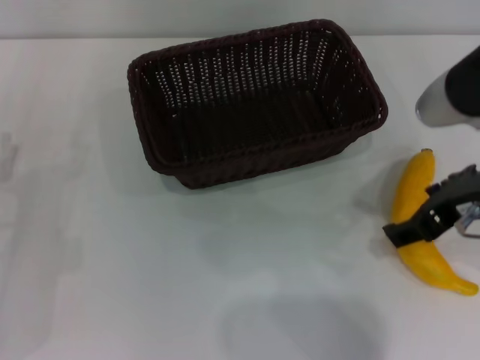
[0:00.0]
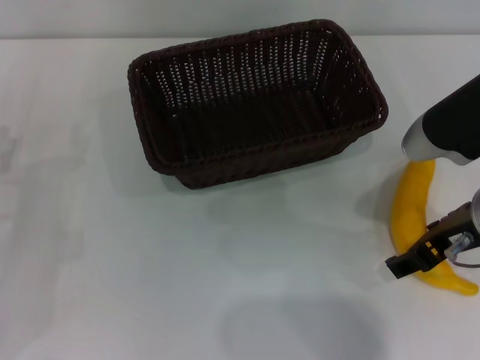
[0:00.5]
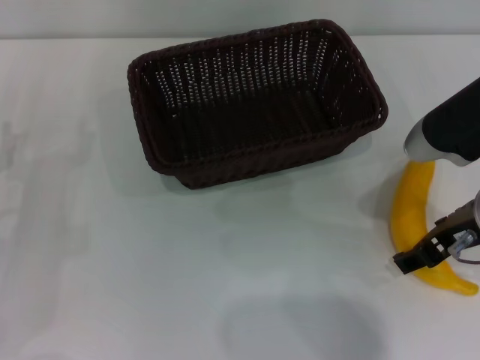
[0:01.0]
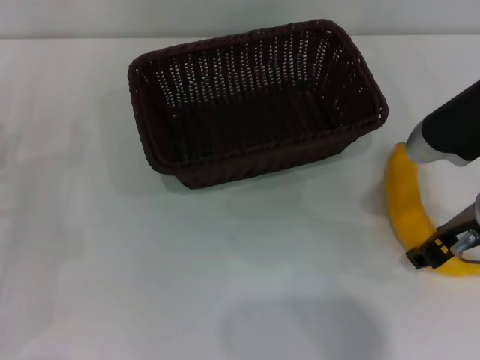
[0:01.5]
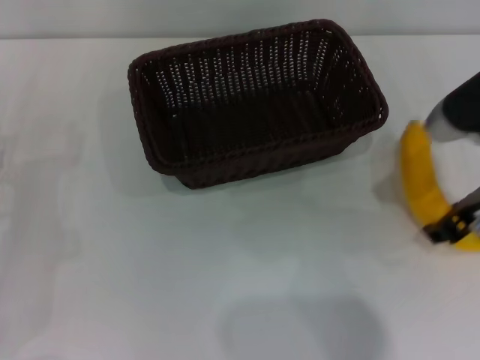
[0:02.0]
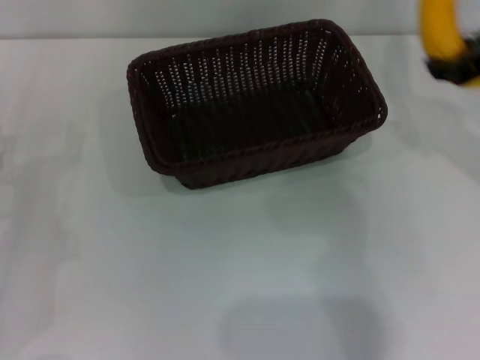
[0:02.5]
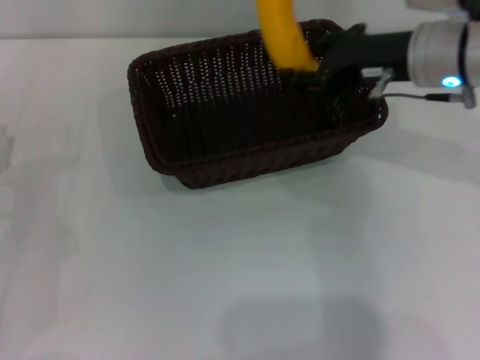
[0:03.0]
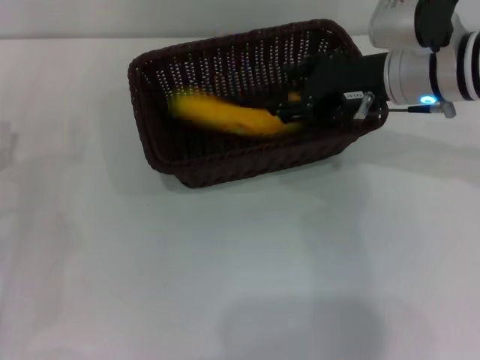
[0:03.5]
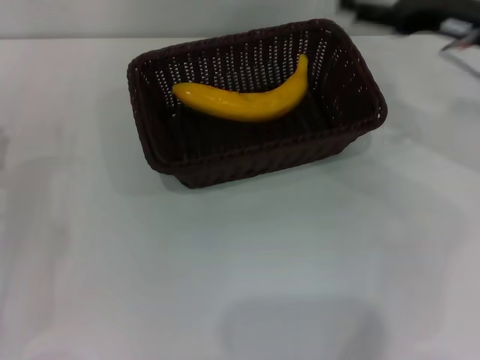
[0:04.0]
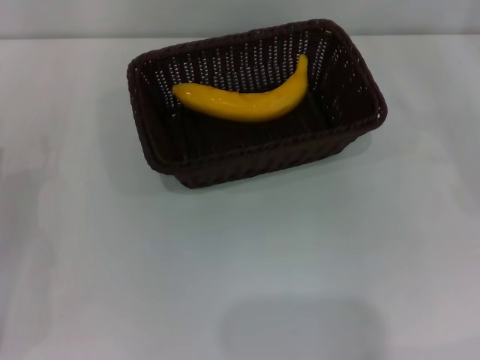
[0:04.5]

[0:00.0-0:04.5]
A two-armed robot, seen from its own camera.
Step, 0:00.0 to 0:02.0: Pick up the banana with the right gripper.
Step, 0:02.5 to 0:03.5: Place the banana into the dark basket with the right gripper.
0:00.0 to 0:02.0: The right gripper ends up roughly 5 cm from where it was, and closes up.
0:02.0 to 0:04.5: The right gripper moves to the right, approximately 20 cm, and opens up.
